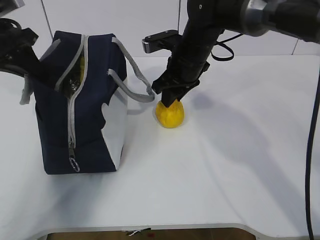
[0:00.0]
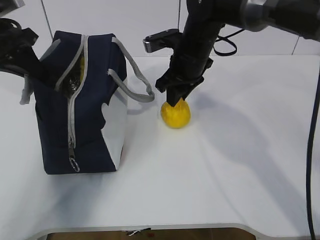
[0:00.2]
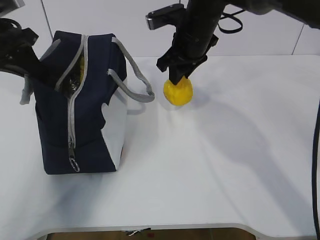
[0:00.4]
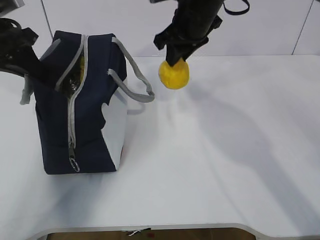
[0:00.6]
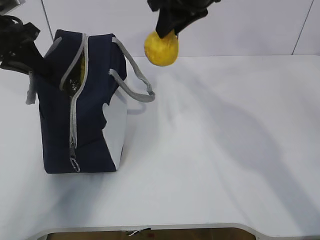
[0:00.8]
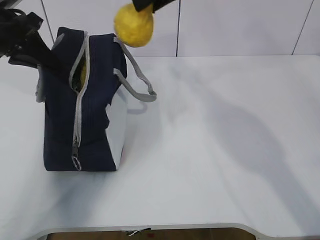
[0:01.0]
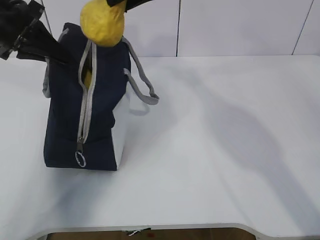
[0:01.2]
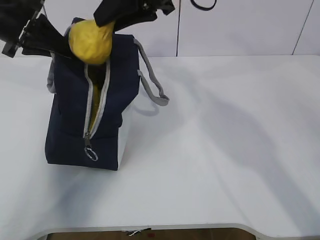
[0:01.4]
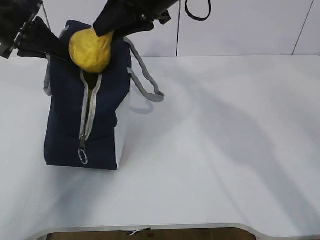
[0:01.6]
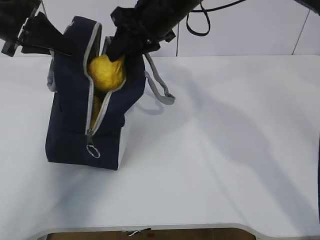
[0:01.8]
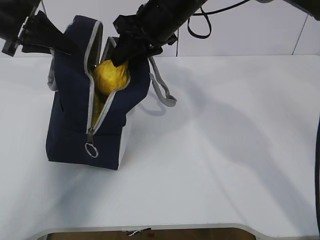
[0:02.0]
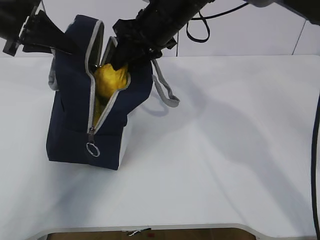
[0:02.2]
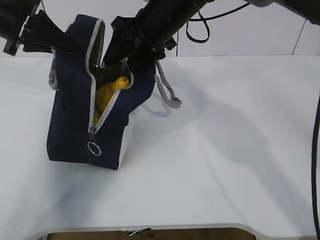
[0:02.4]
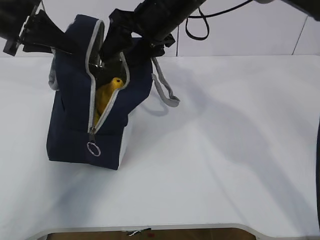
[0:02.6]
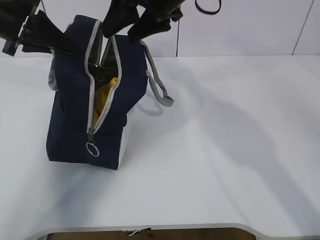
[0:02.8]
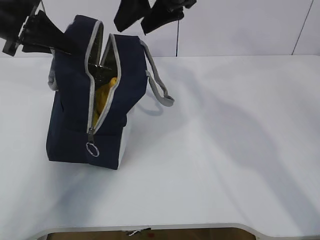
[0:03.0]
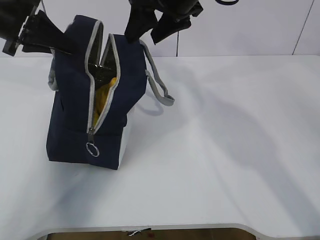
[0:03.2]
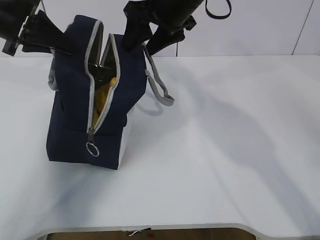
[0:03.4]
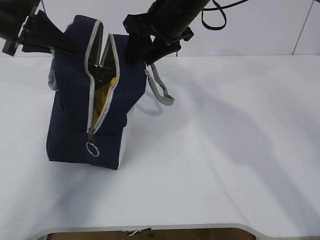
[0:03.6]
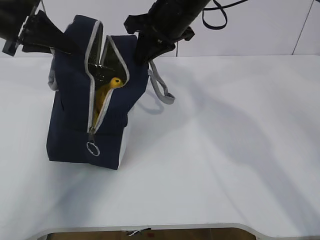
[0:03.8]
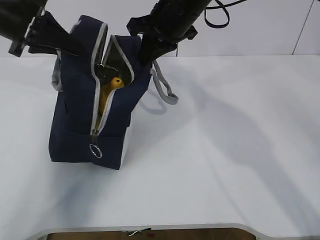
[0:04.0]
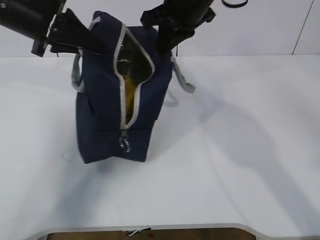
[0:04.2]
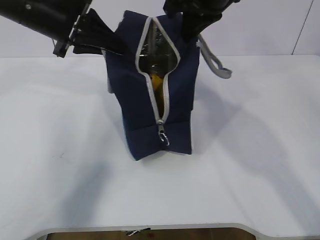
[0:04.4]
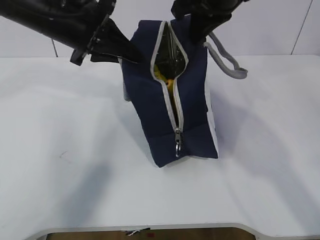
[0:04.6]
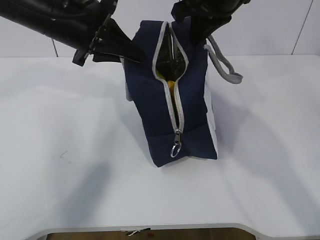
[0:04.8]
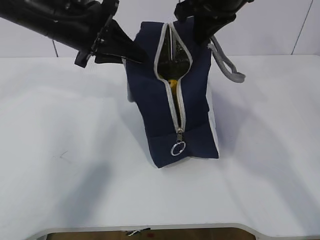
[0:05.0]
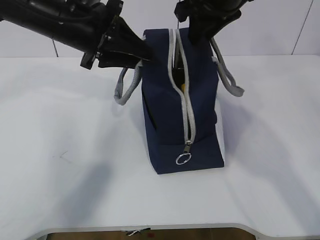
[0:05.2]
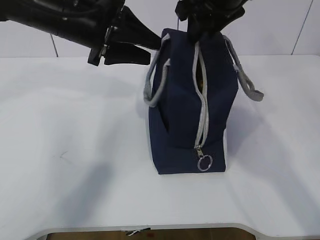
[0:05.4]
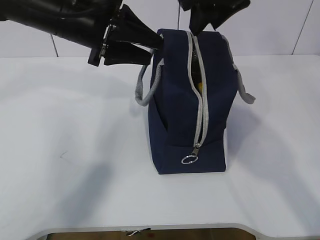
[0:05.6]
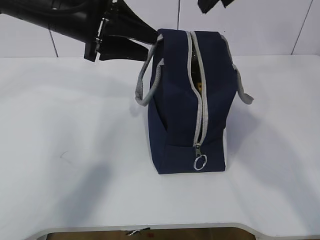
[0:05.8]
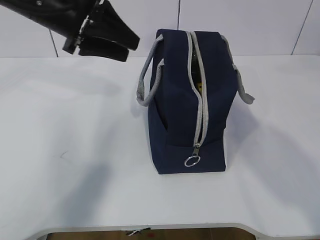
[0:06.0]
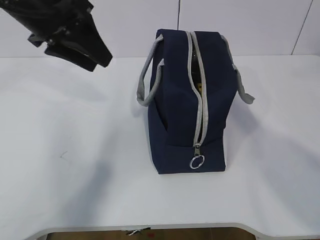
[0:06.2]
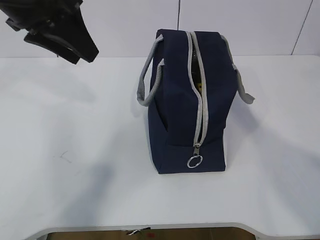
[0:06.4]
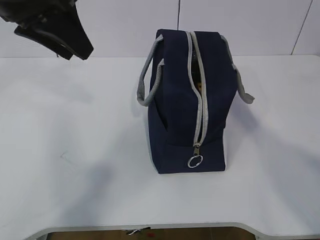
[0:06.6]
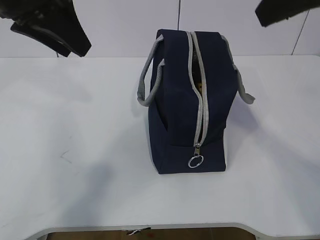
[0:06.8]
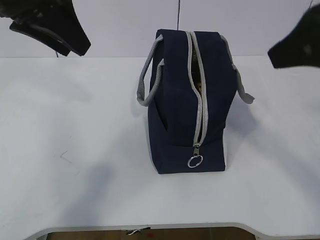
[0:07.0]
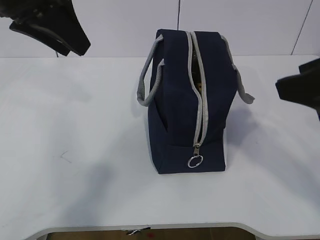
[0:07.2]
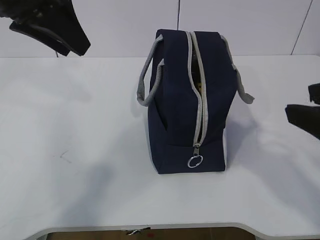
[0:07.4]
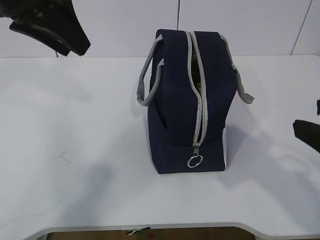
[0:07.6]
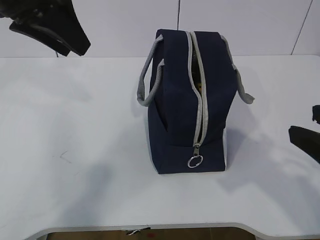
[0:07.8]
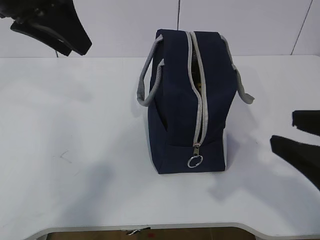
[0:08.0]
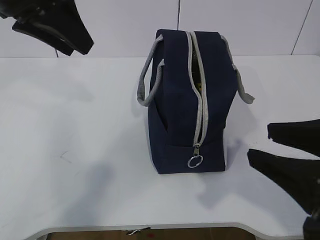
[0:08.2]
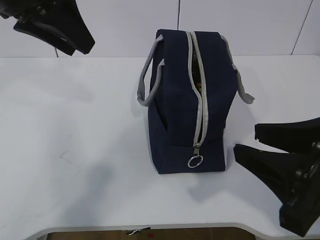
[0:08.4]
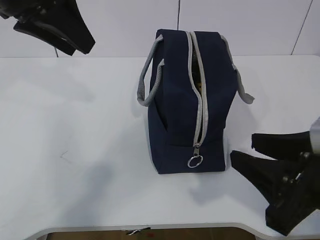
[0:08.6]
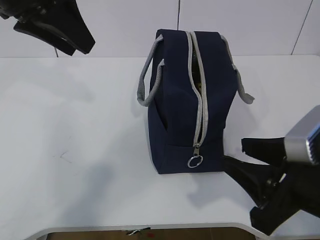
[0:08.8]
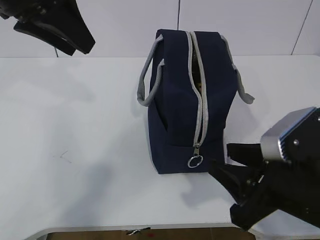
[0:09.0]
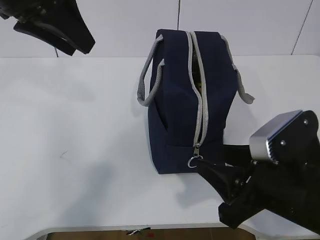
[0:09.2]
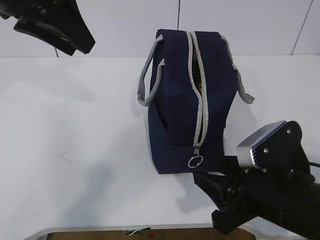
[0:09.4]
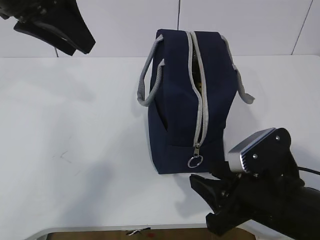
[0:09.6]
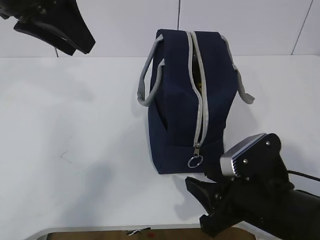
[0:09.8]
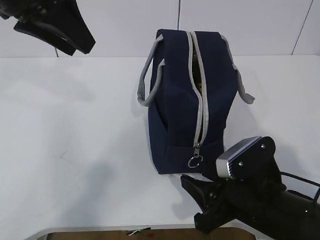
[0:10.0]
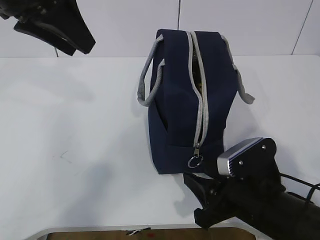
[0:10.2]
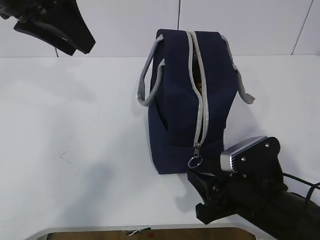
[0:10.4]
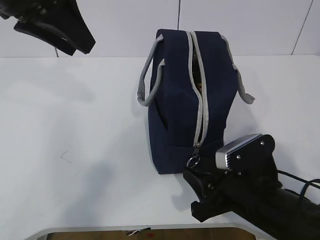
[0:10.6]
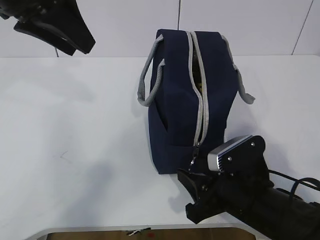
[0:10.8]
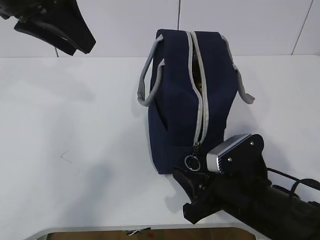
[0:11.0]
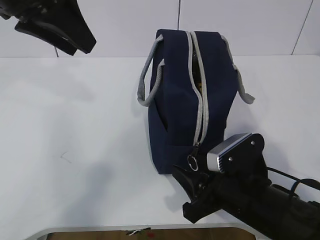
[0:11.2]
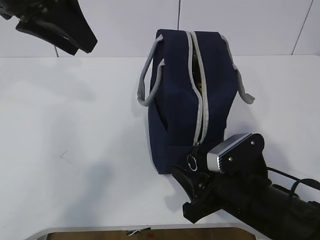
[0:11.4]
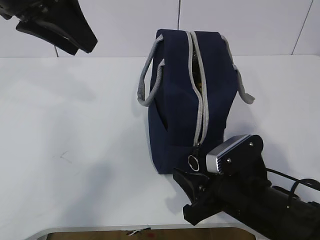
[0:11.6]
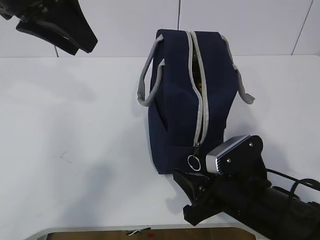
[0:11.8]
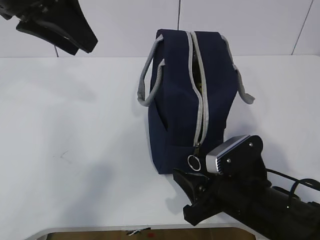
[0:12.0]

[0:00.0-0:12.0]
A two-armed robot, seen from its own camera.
0:00.0 to 0:01.6: The right gripper goes some 15 cm upward.
0:01.6 to 0:03.0: The right gripper opens up.
0:03.0 to 0:04.4: The right gripper closes up; the left gripper goes approximately 10 cm to the right.
0:04.4 to 0:06.0: The right gripper heads upward and backward, covering some 10 cm, and opens its fingers. Meanwhile the left gripper opens.
0:06.0 to 0:07.6: The right gripper is displaced backward, downward and to the right by approximately 25 cm. The left gripper is displaced backward and upward by about 10 cm.
0:07.6 to 0:09.0: The right gripper moves downward and to the left, approximately 10 cm.
0:09.0 to 0:10.4: The right gripper goes approximately 10 cm downward.
0:10.4 to 0:12.0: The grippers make only small movements.

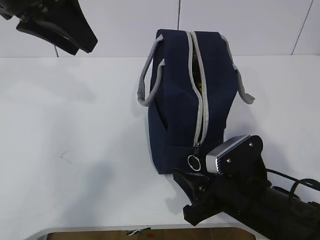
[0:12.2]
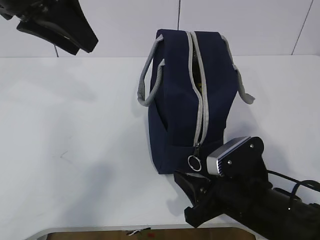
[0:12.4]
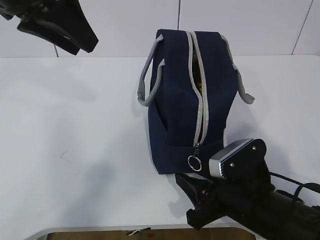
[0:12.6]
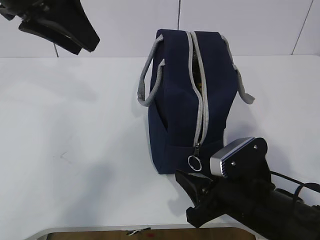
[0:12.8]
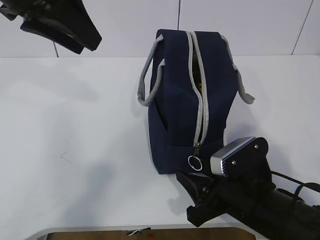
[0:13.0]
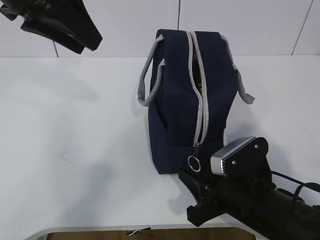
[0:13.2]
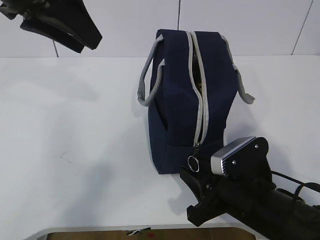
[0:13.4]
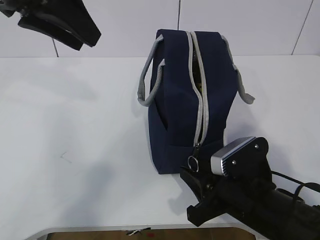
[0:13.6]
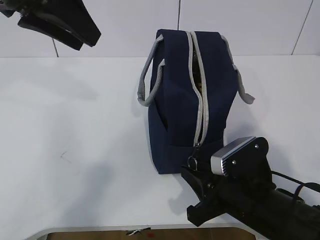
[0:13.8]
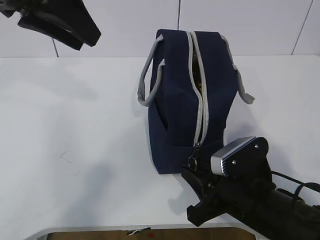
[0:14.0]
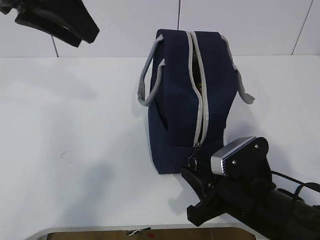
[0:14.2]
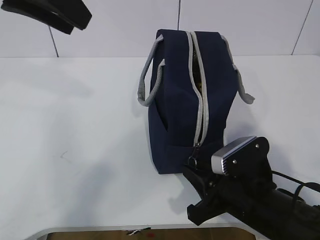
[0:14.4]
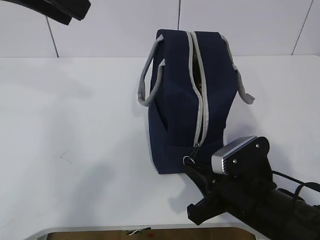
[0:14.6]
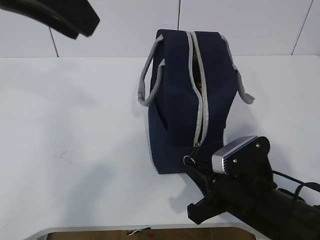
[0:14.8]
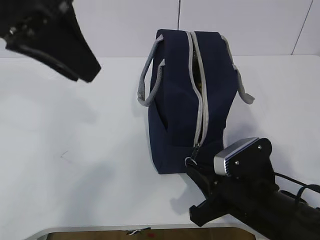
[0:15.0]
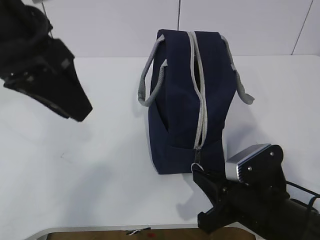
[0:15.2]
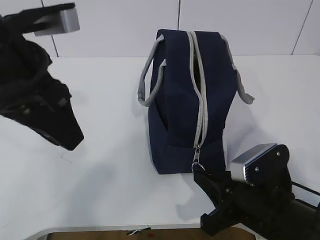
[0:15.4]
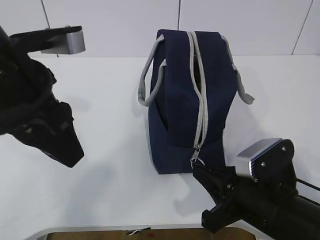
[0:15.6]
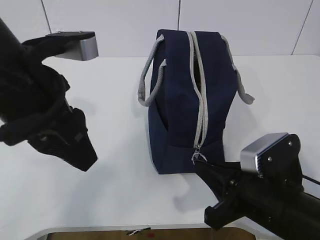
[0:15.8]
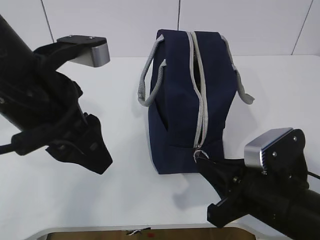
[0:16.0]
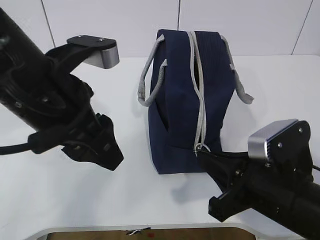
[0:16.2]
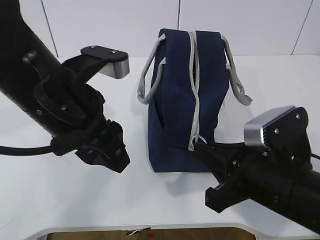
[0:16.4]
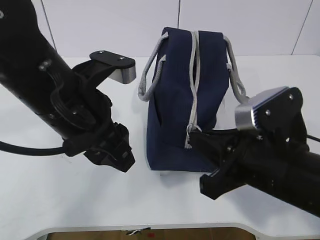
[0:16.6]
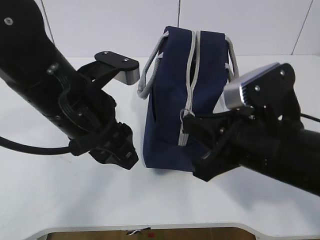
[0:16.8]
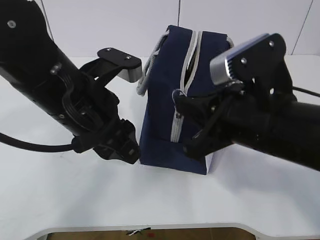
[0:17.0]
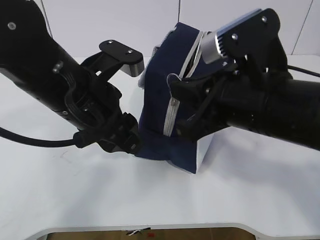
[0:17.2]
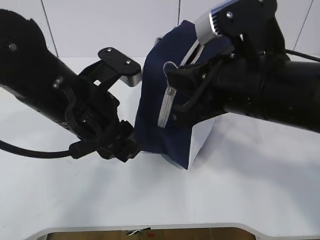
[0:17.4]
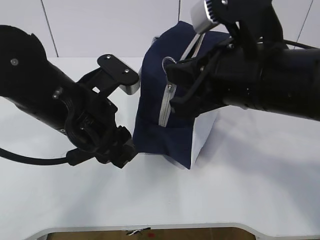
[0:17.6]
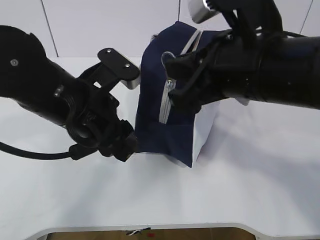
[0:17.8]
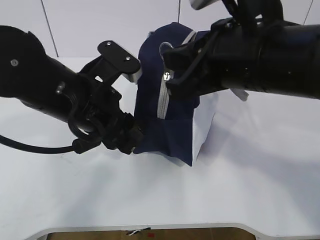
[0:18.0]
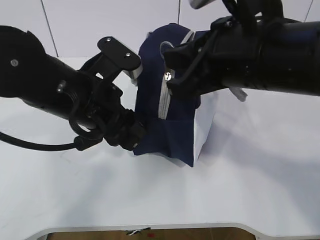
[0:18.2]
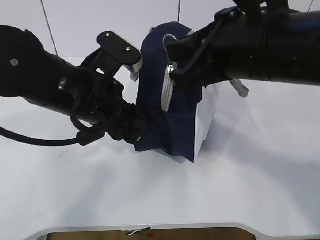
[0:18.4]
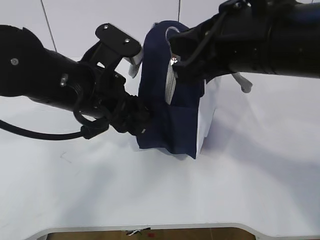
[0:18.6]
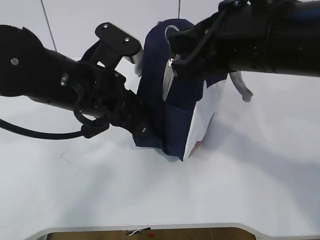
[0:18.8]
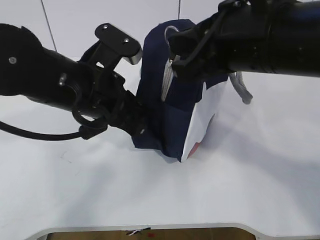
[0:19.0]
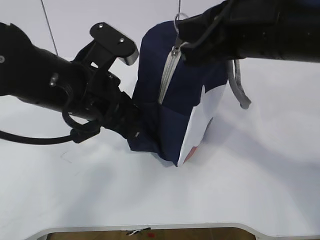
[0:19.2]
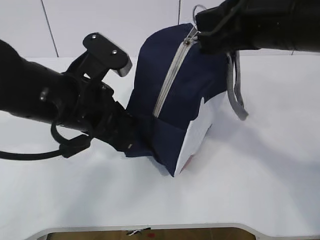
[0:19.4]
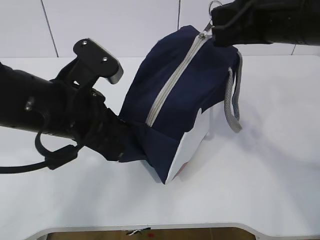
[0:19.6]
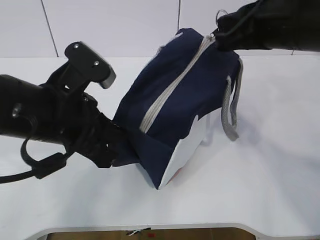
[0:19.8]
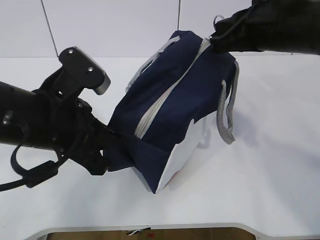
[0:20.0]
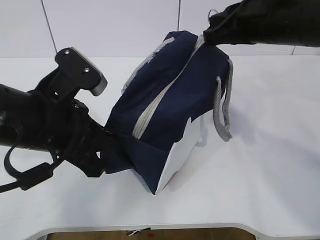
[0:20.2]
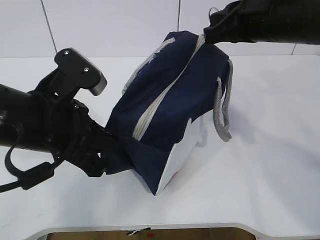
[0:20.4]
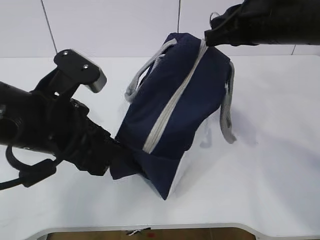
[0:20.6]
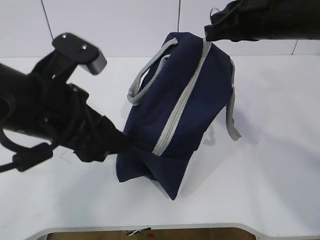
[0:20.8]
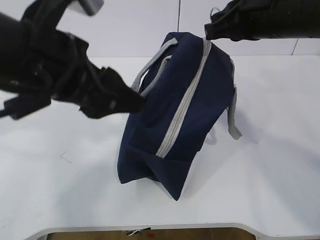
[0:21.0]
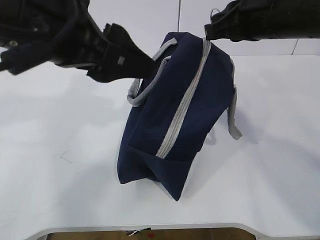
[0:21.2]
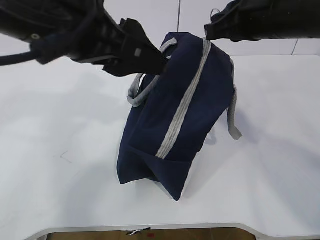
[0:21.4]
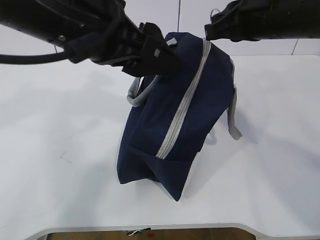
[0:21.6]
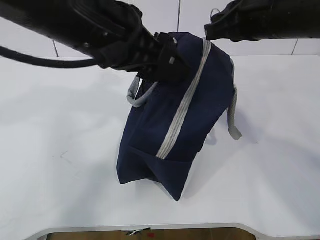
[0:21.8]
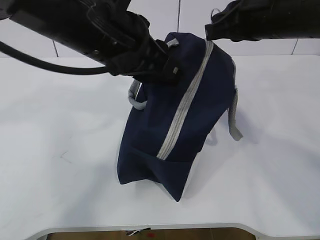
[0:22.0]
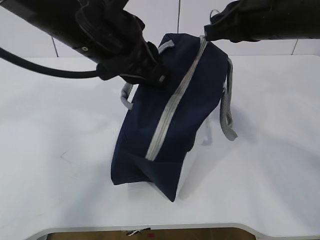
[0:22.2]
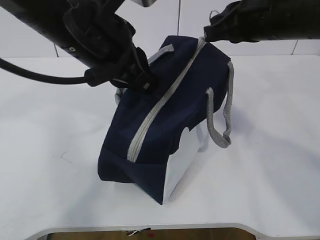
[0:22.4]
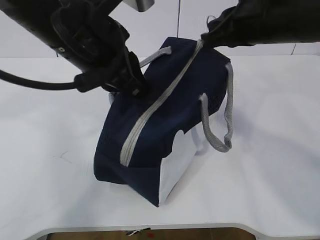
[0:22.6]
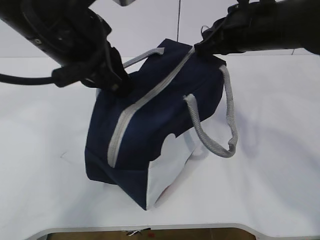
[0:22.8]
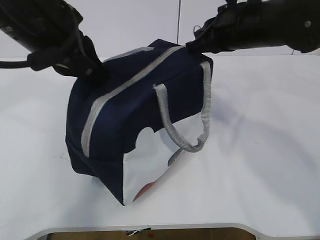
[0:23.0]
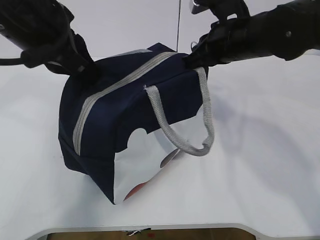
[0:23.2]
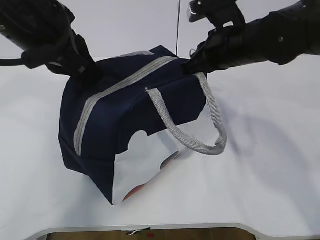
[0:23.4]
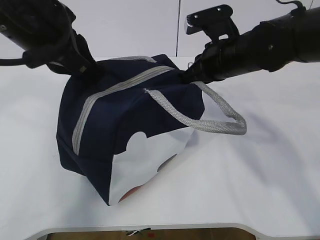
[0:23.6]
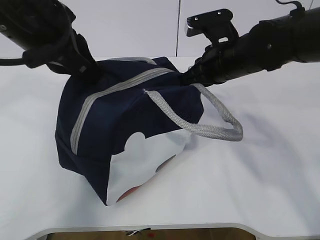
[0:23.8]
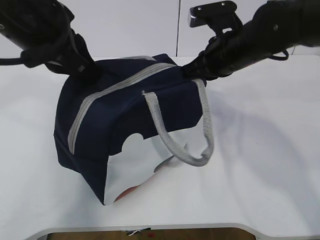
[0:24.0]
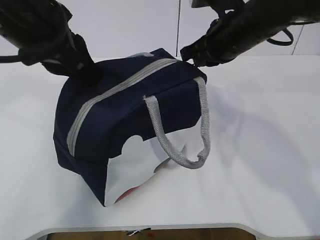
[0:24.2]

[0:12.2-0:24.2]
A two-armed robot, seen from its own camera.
Step, 0:13.0 to 0:15.8: Grab the lunch bag with your left hand.
Step, 0:16.0 to 0:23.2: Grab the lunch bag with your left hand.
0:12.2 to 0:13.8: The right gripper closes its fingers.
0:13.8 to 0:15.2: The right gripper closes its fingers; the left gripper shifts approximately 5 cm backward.
0:15.2 to 0:16.6: The left gripper is displaced downward by some 10 cm. The right gripper is displaced upward by roughly 10 cm.
0:16.6 to 0:18.2: The right gripper moves upward, some 10 cm.
0:18.2 to 0:19.8: The right gripper shifts approximately 10 cm to the right and forward. Meanwhile the left gripper closes up.
0:19.8 to 0:21.2: The left gripper moves upward, approximately 10 cm, and opens.
0:21.2 to 0:22.6: The left gripper shifts by roughly 5 cm, and closes its fingers.
0:22.6 to 0:24.2: The right gripper heads forward, covering approximately 5 cm. Meanwhile the left gripper moves to the left, about 5 cm.
